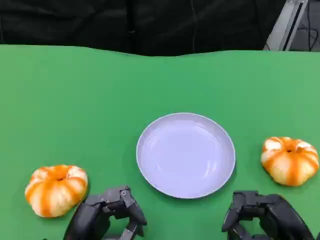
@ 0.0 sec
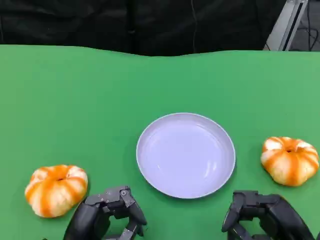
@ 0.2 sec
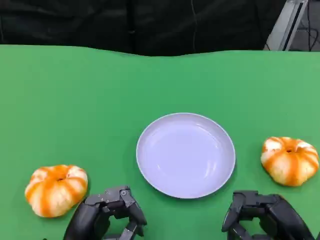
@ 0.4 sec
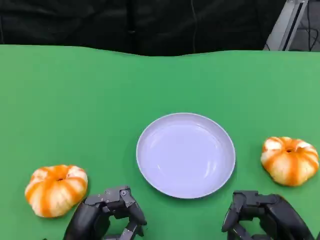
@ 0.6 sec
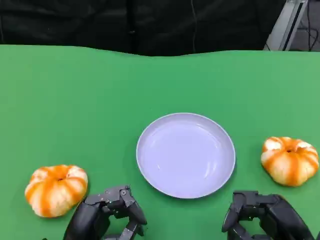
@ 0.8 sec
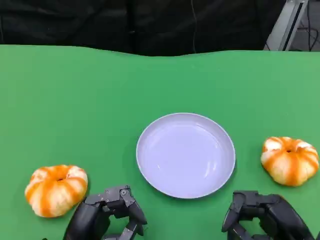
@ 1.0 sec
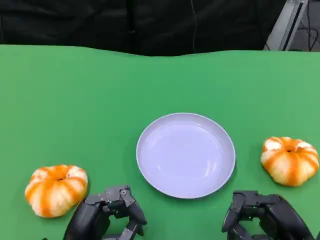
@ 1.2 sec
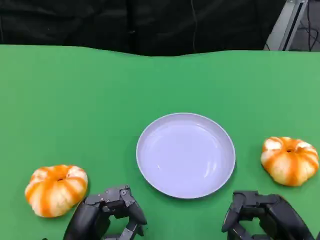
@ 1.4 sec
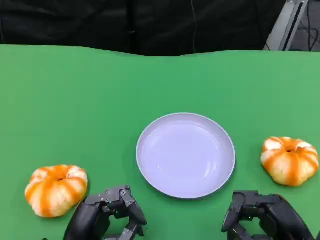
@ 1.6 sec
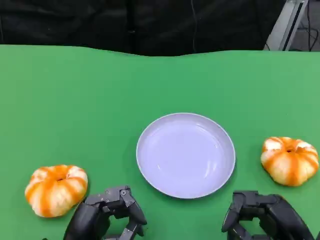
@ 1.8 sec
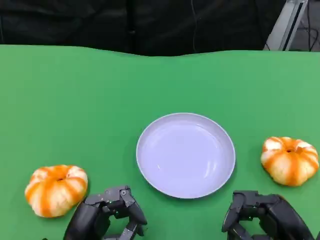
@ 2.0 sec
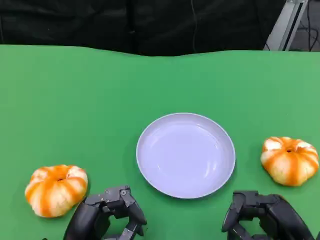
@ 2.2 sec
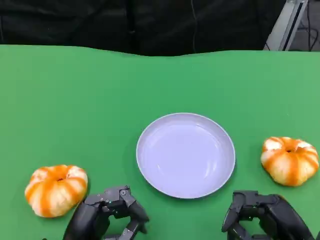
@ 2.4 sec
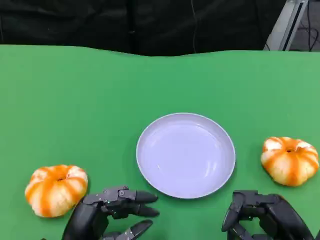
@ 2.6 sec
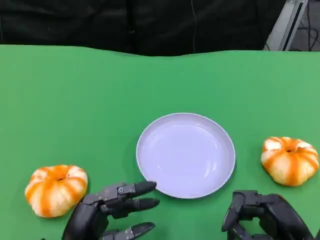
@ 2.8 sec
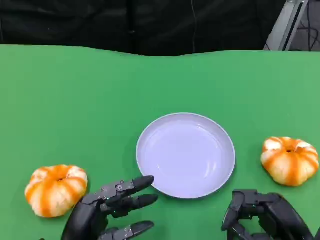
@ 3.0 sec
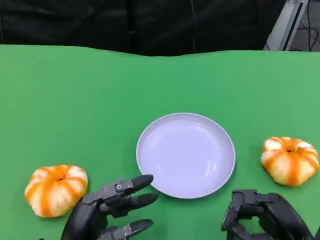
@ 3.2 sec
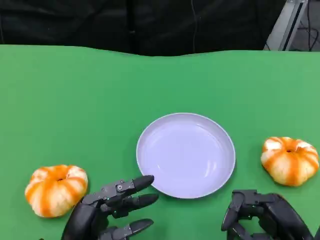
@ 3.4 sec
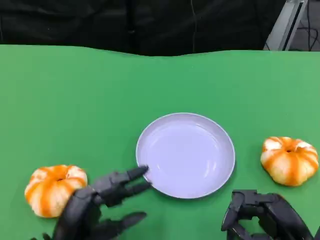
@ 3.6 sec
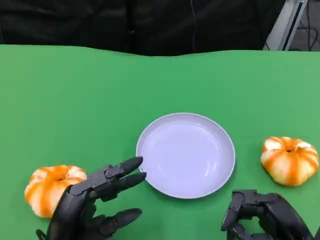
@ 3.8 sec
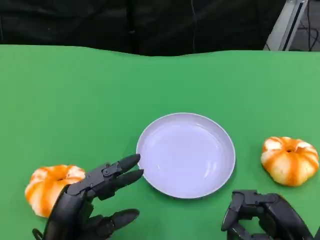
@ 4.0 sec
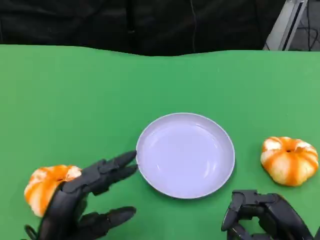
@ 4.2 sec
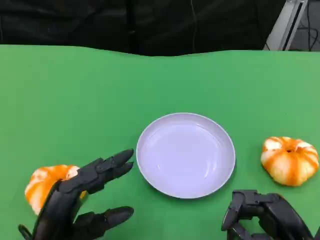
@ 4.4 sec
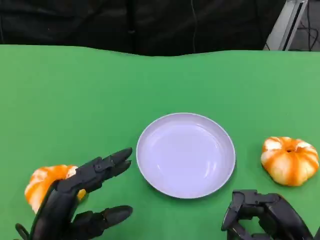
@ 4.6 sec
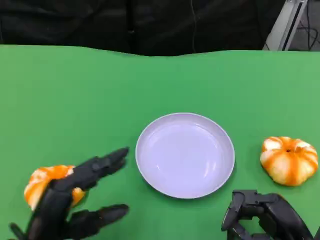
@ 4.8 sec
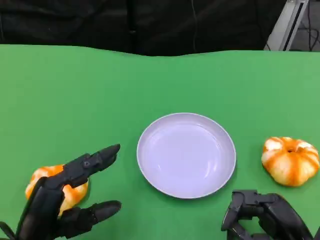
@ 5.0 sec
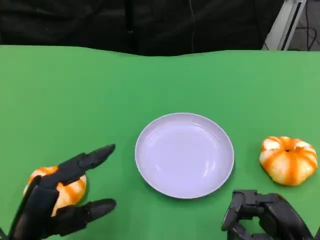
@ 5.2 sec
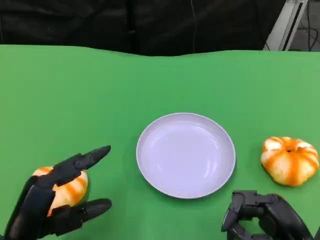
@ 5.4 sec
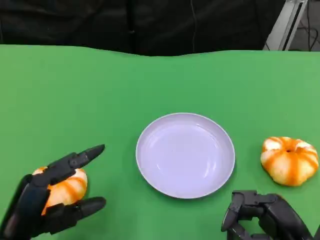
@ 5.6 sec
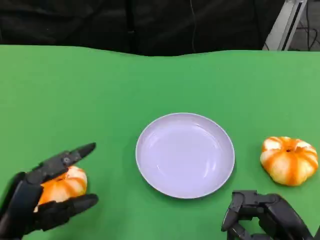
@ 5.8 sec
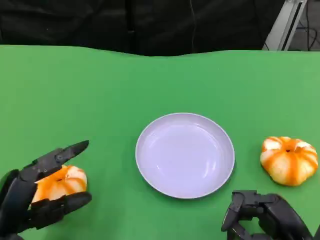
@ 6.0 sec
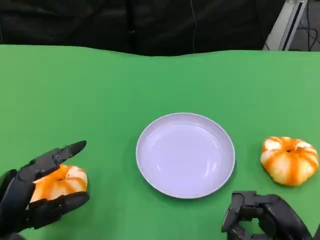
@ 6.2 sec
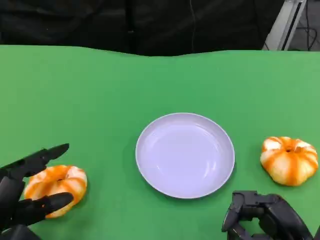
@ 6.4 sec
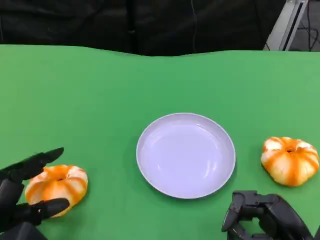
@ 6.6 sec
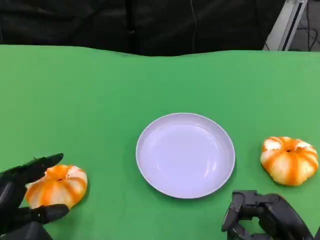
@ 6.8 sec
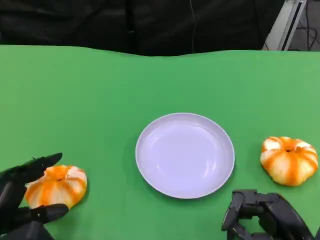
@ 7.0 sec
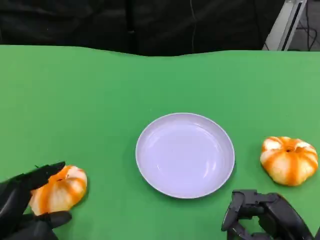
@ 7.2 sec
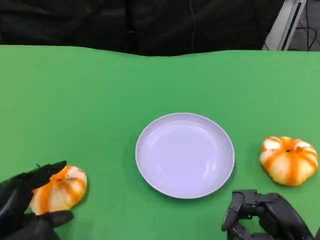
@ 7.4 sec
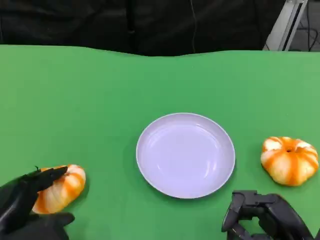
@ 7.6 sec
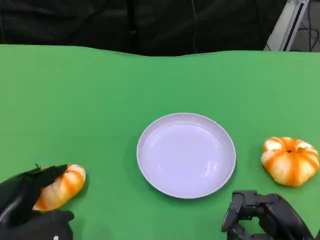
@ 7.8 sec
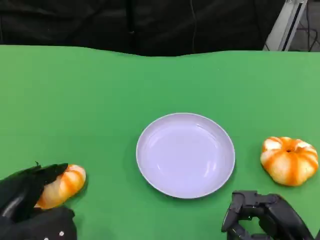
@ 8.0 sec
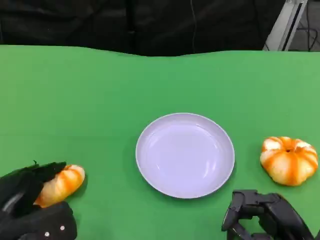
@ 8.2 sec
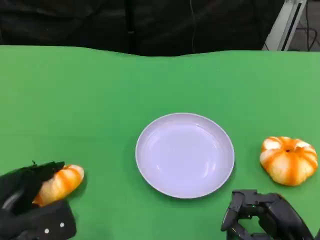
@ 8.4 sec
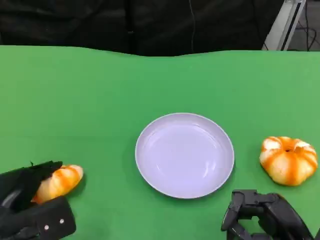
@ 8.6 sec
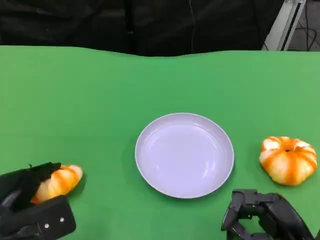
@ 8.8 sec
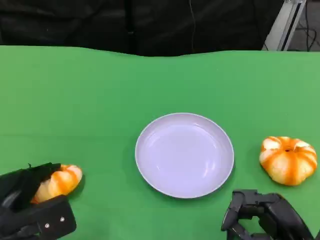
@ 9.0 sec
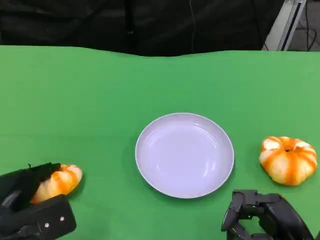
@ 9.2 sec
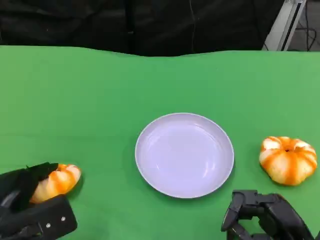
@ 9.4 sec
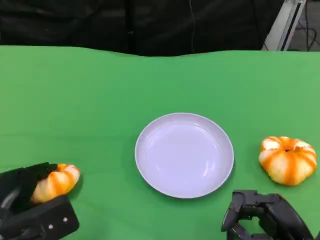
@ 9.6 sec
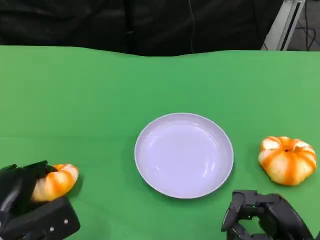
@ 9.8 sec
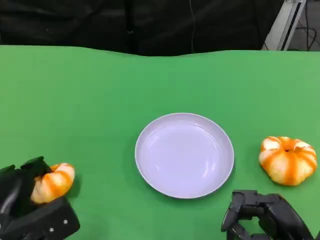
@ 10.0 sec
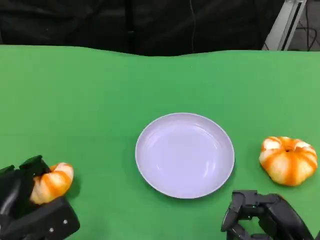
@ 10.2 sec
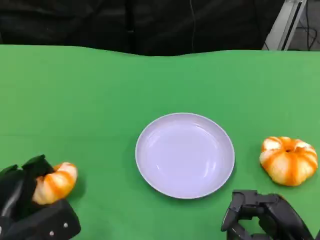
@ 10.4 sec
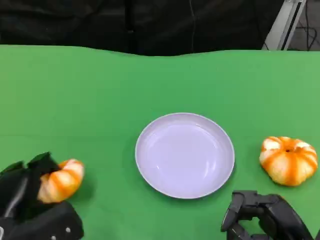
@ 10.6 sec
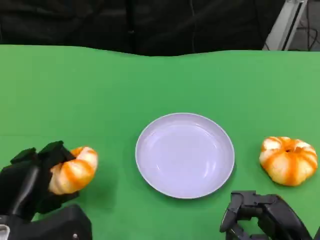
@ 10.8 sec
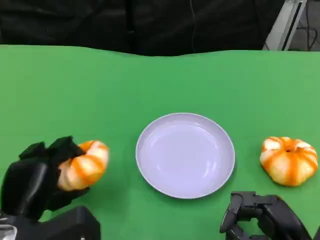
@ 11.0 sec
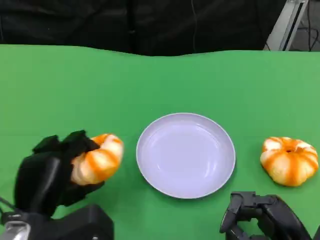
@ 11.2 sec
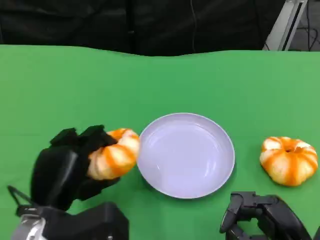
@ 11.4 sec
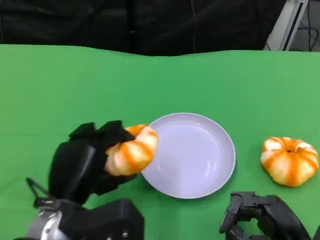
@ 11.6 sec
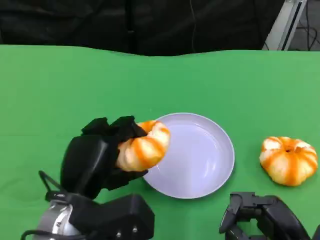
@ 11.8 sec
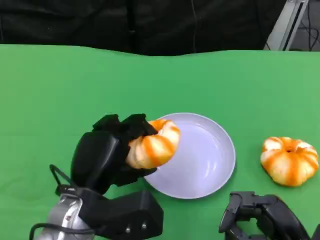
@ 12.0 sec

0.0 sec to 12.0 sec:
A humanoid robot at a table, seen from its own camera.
Task of the whole recording: Grasp the bread from the table and place it into the plate.
0.0 sec to 3.0 sec: Both hands stay put.
3.0 sec to 4.4 sec: The left hand shifts by roughly 5 cm.
4.4 sec to 6.0 sec: The left hand shifts roughly 5 cm to the left.
7.6 sec to 10.4 sec: The hands stay close to where they were, moving slightly.
10.4 sec to 12.0 sec: The left hand is displaced to the right and upward by some 15 cm.

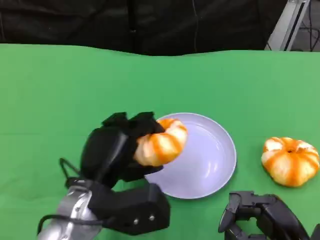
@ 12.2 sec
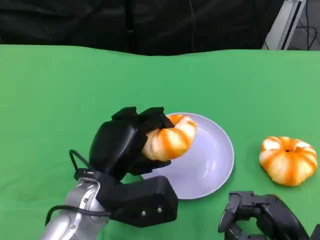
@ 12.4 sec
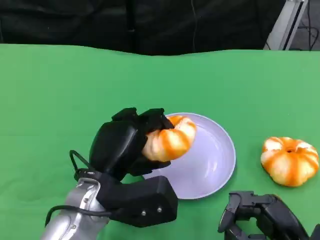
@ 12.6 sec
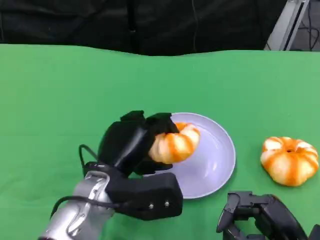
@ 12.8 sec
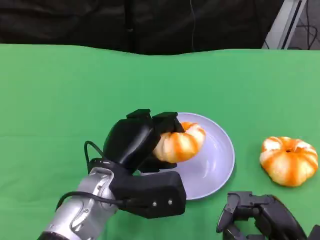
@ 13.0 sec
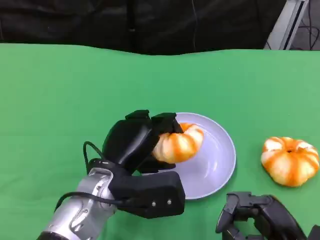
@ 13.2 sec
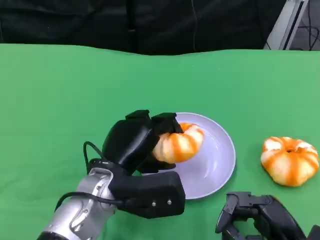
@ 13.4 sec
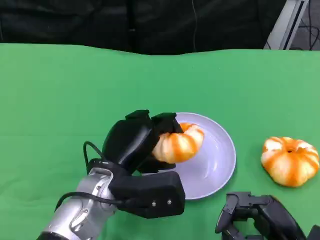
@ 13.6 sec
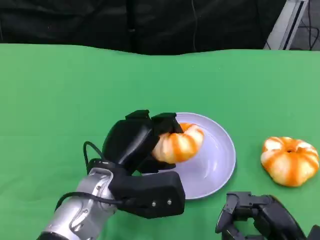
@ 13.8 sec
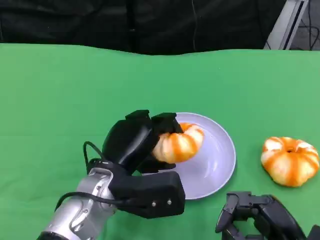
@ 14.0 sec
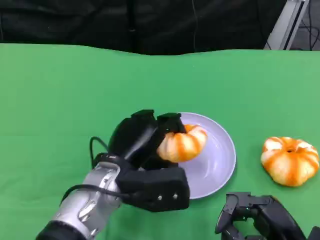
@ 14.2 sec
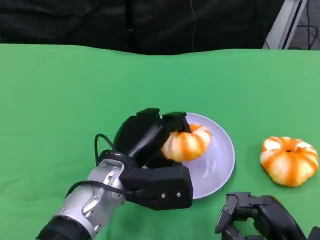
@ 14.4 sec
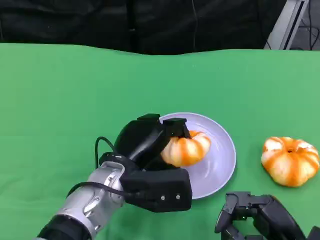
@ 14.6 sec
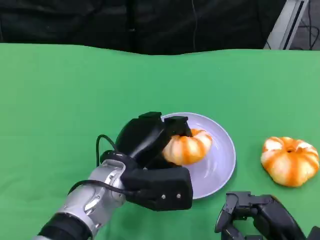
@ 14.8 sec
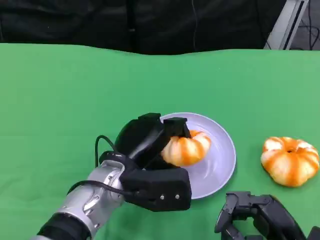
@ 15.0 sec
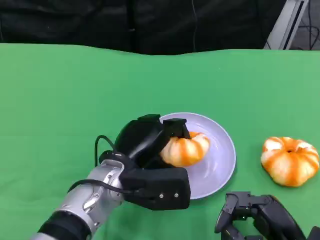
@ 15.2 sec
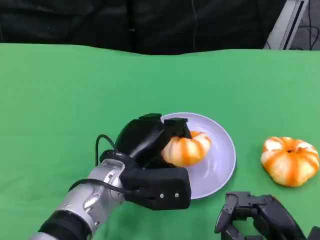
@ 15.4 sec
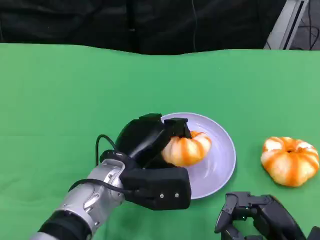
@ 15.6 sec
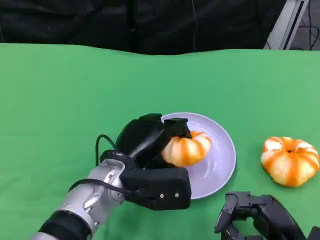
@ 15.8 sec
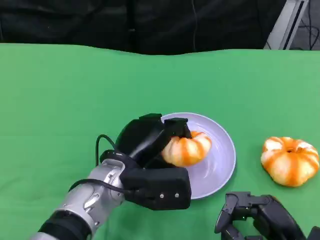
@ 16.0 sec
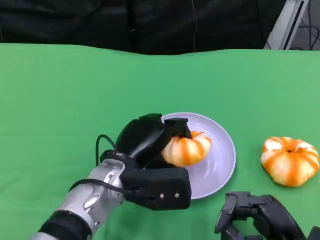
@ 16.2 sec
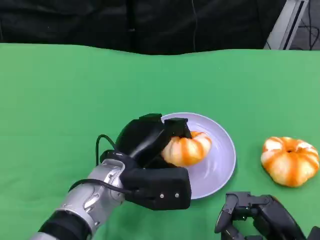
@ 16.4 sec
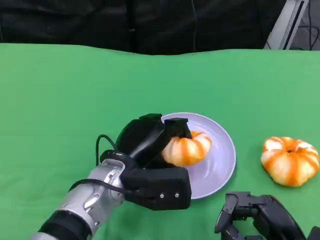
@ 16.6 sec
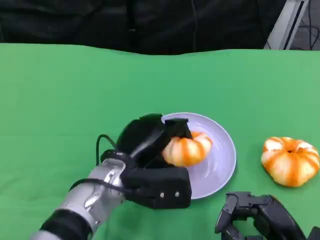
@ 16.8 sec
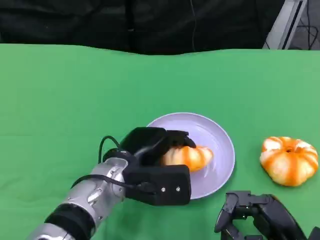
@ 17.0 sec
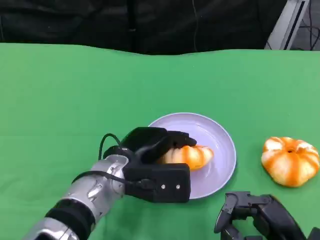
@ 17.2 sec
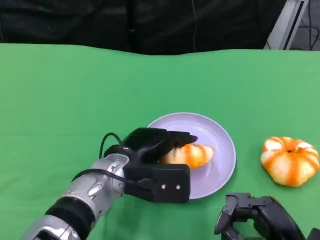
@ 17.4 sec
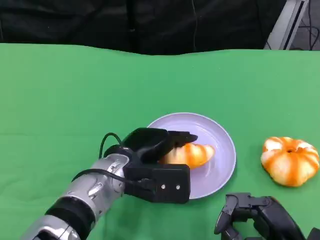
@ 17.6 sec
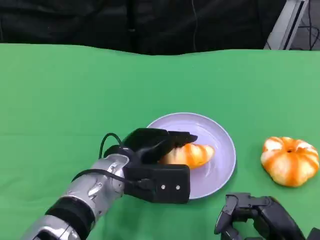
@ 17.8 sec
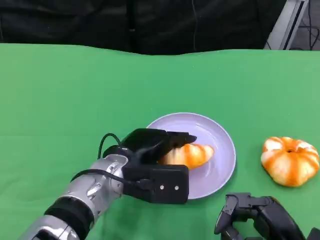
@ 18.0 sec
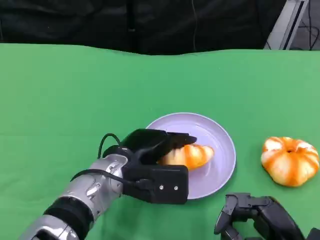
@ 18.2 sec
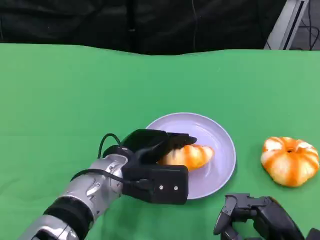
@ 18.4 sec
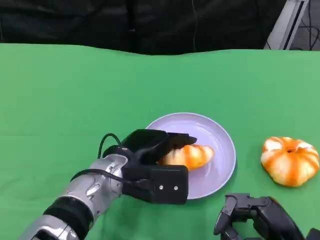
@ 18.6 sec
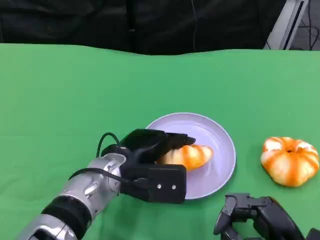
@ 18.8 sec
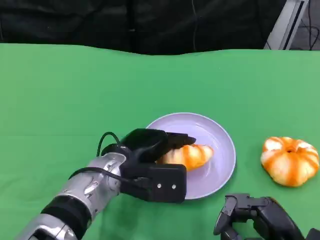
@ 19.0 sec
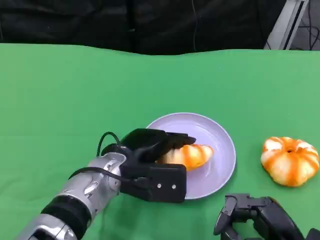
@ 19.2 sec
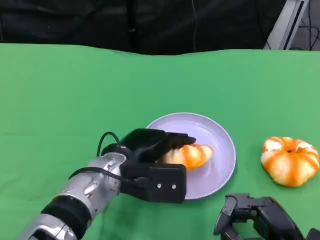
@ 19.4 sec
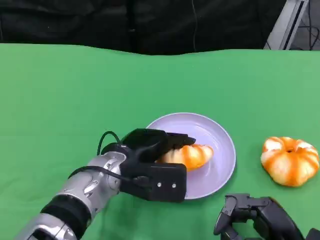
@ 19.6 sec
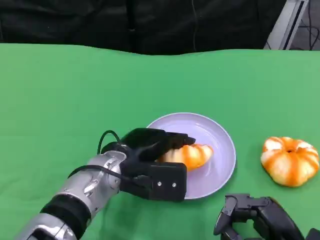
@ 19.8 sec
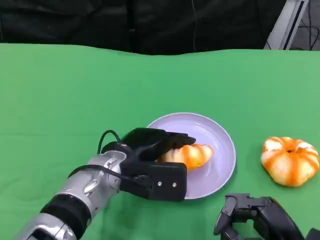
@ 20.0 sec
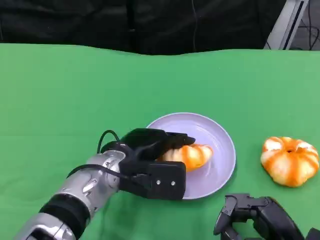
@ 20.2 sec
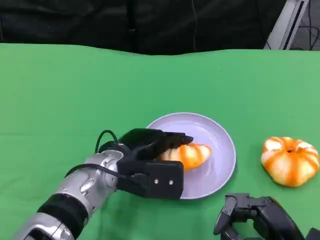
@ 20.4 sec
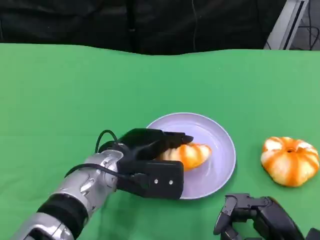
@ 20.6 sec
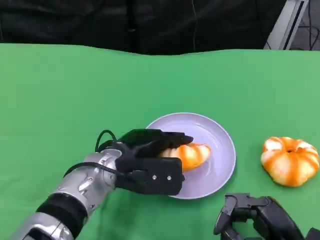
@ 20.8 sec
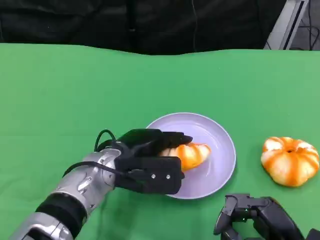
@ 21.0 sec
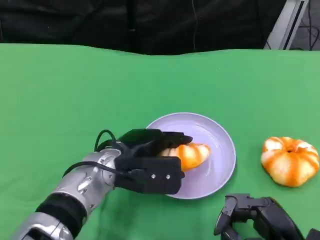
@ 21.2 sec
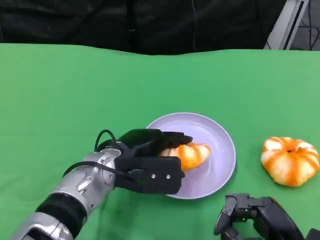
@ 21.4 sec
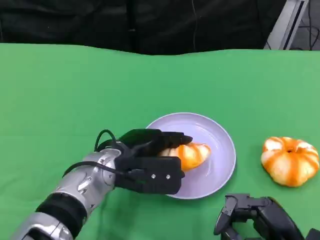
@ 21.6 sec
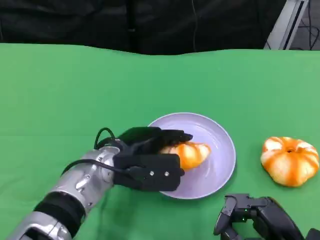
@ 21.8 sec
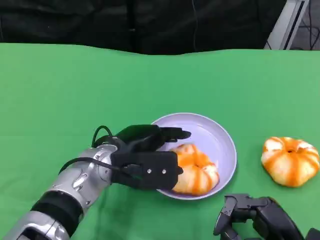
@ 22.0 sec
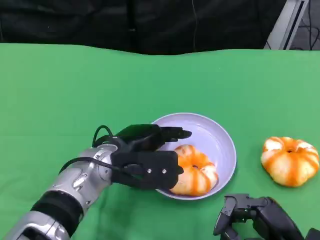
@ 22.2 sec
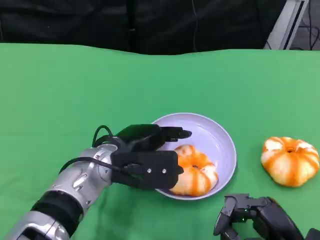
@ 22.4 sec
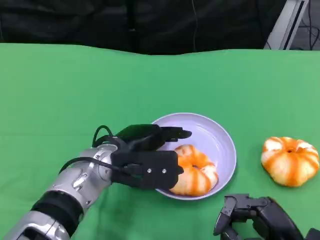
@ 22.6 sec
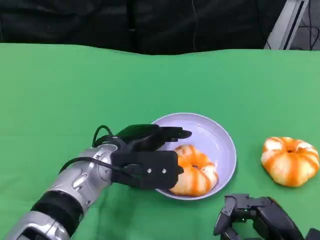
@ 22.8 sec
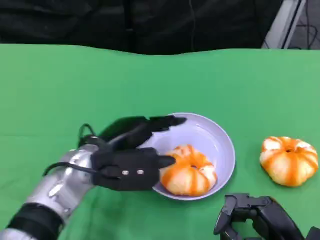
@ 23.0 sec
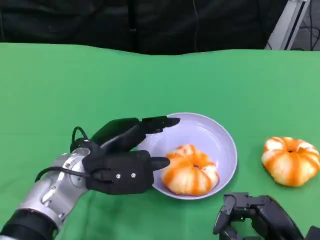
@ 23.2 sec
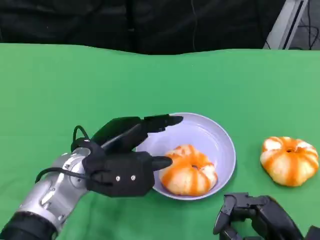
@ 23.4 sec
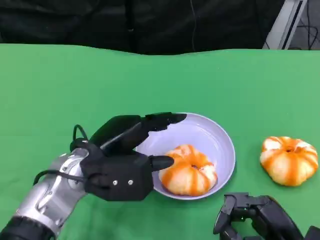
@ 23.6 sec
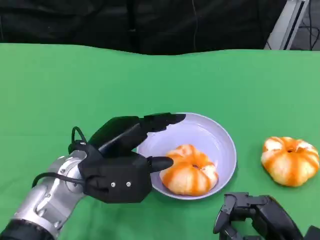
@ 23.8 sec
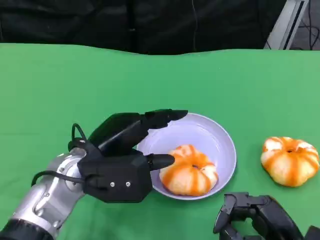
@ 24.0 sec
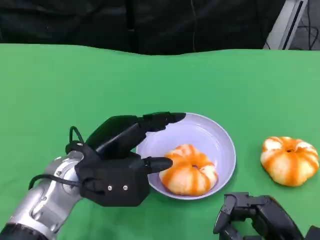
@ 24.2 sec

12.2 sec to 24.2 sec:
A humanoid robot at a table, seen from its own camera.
Task of the whole recording: Grasp the bread from the table and place it into the plate.
12.2 sec to 15.2 sec: The hands stay close to where they were, moving slightly.
15.2 sec to 16.6 sec: Both hands stay about where they are.
16.6 sec to 18.2 sec: The hands move only a little.
18.2 sec to 19.8 sec: Both hands stay put.
19.8 sec to 21.2 sec: Neither hand changes place.
21.2 sec to 22.6 sec: The two hands keep their place.
22.6 sec to 24.2 sec: The left hand changes place by roughly 5 cm.
